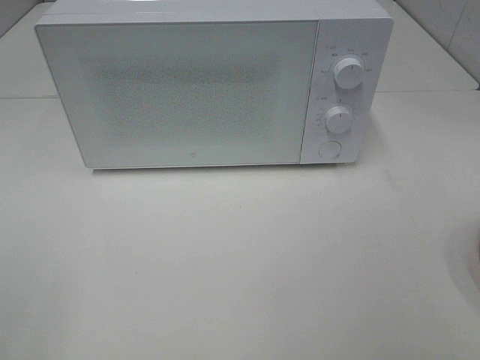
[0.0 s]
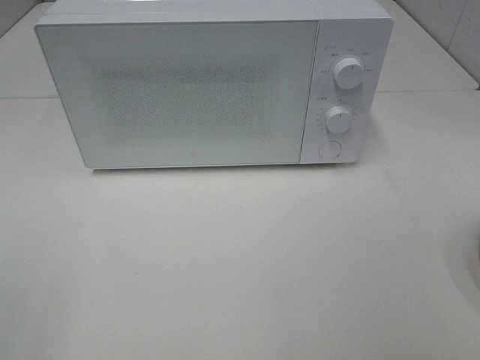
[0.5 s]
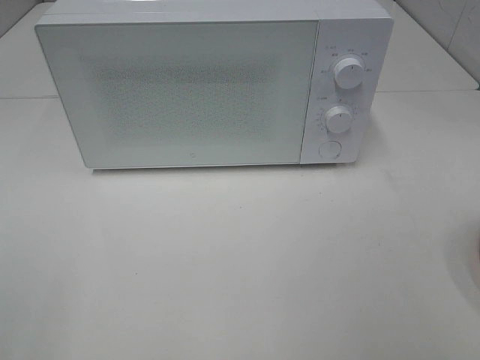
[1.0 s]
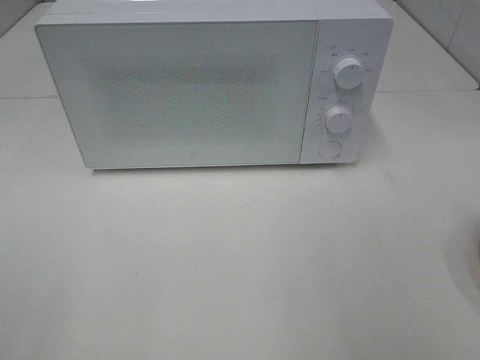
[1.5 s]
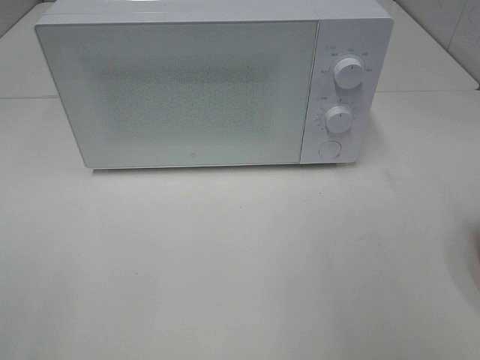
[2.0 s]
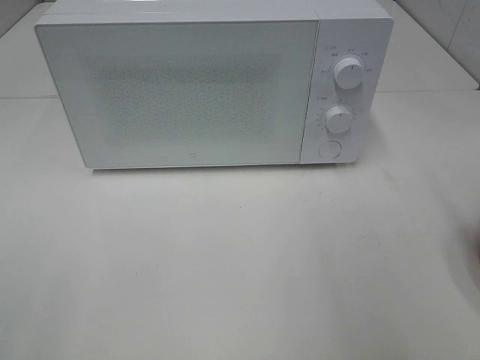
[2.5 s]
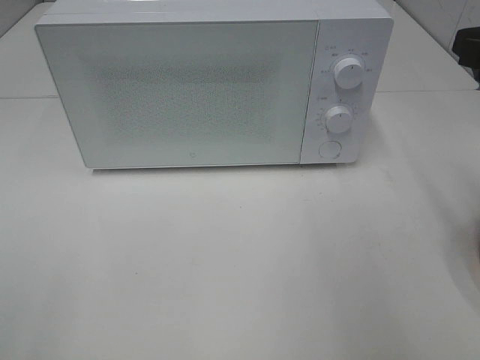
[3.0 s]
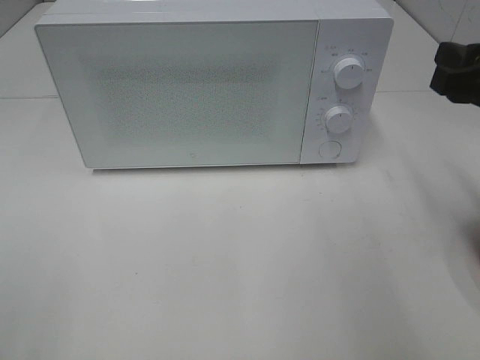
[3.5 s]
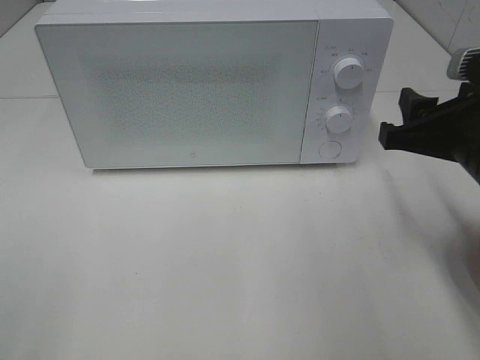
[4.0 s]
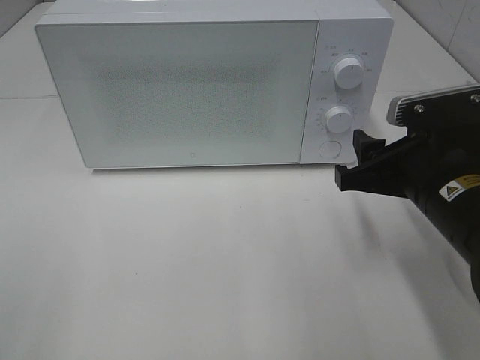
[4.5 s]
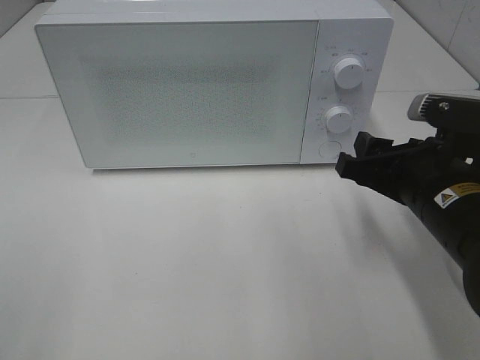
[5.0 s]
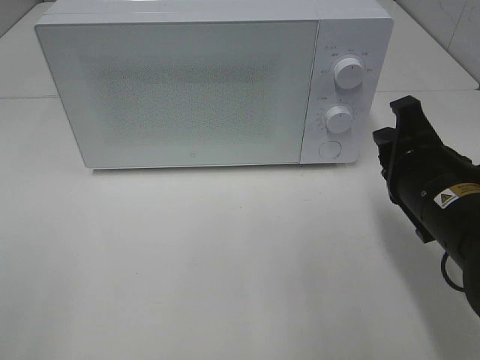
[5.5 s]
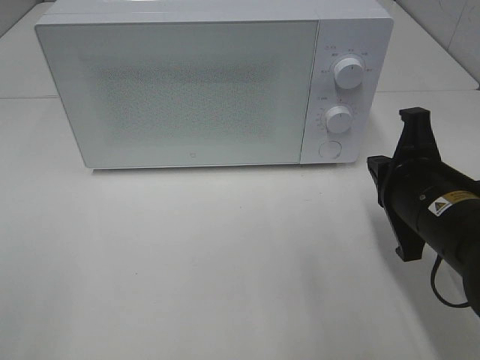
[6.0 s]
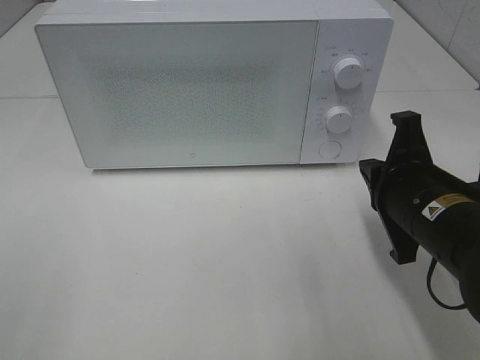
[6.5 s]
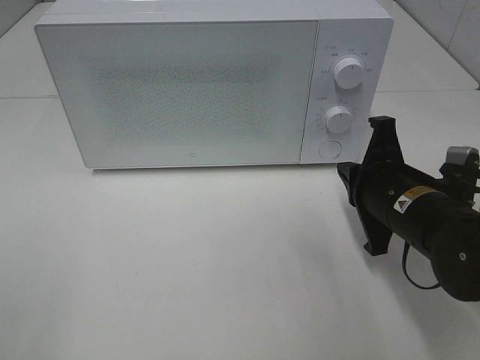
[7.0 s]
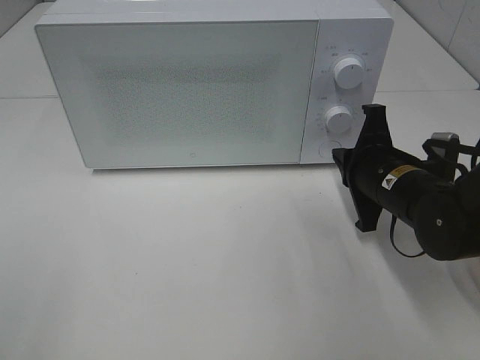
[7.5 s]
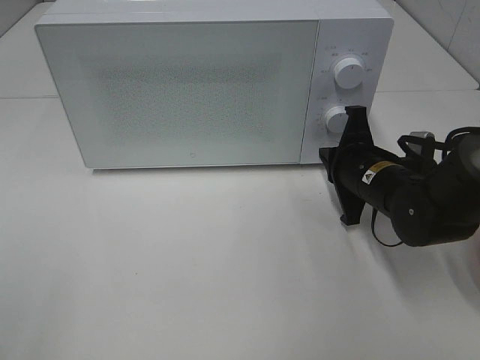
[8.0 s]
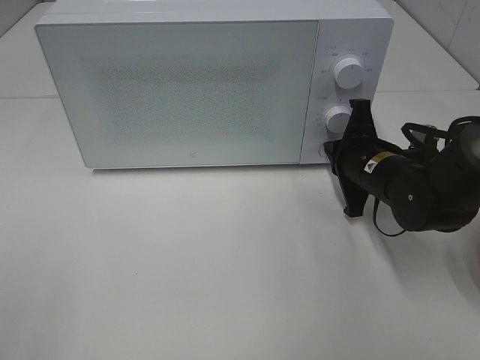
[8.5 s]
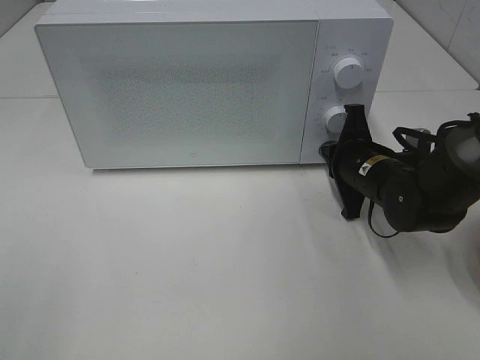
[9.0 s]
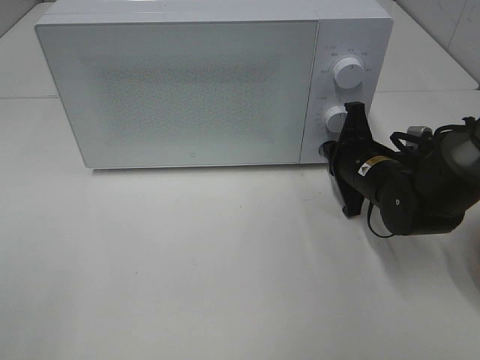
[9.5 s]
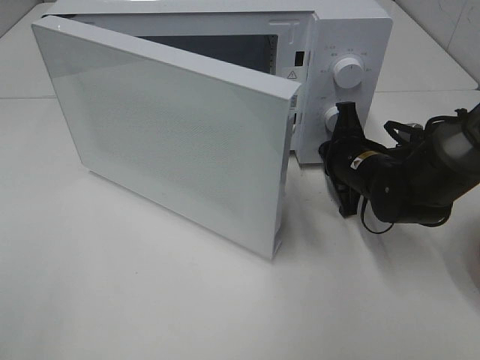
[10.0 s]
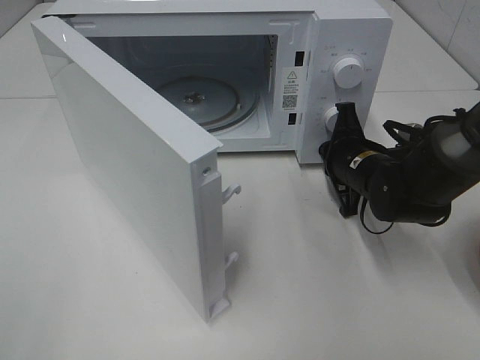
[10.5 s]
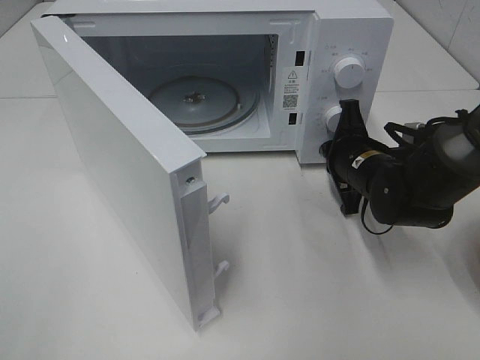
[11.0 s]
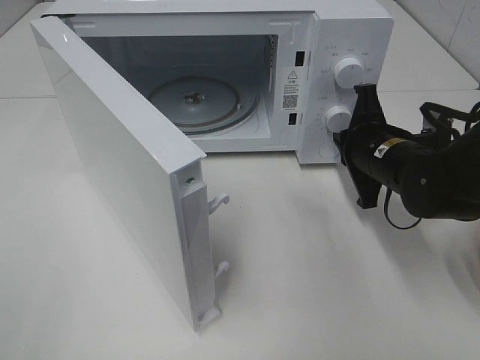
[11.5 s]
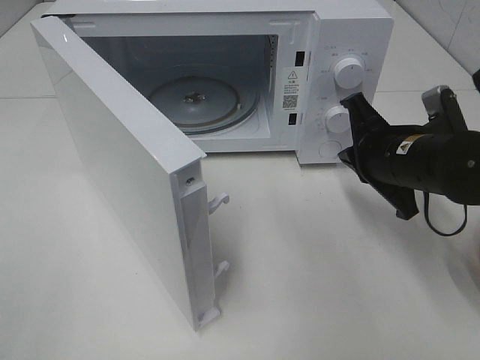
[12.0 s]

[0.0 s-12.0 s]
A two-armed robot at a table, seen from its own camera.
Task of the whole recording: Heat the burger.
Step, 0.0 to 11.0 s: Right hand: press the switch.
2.0 to 4.0 s: The right gripper shifts roughly 15 cm downward, forward and to the left.
4.0 to 6.0 s: The right gripper travels downward by some 5 cm, and closes.
6.0 to 8.0 s: The right gripper goes roughly 10 cm forward and downward.
8.0 to 10.0 s: There are only small adjustments of the grippers.
10.0 to 12.0 s: The right gripper goes about 10 cm upward and backward.

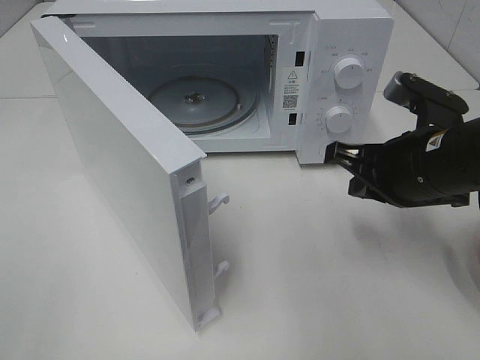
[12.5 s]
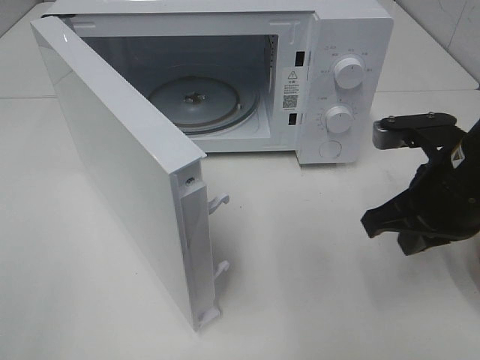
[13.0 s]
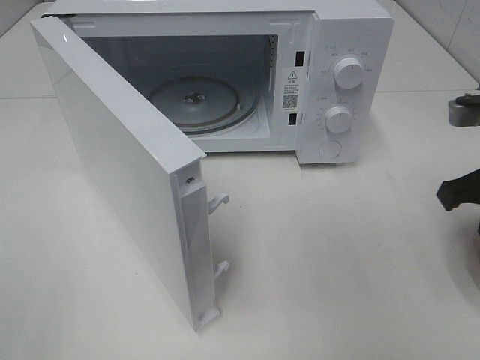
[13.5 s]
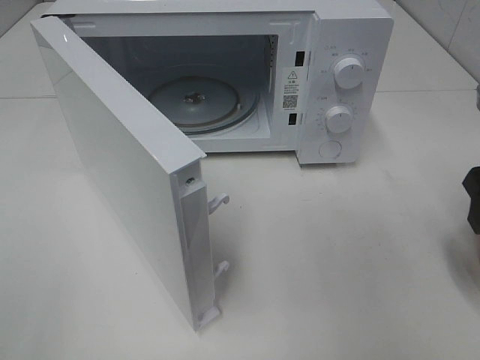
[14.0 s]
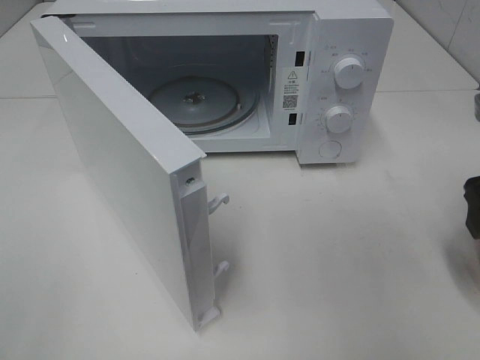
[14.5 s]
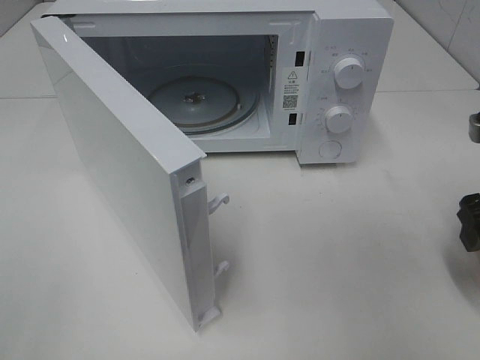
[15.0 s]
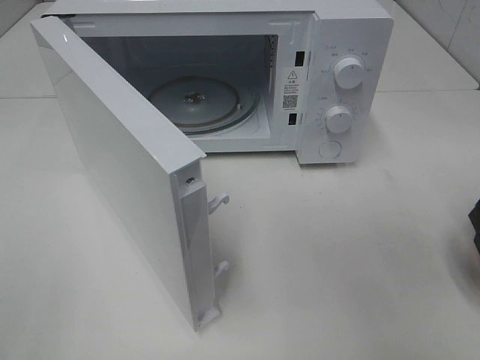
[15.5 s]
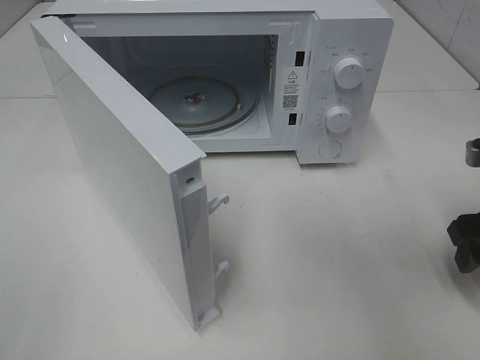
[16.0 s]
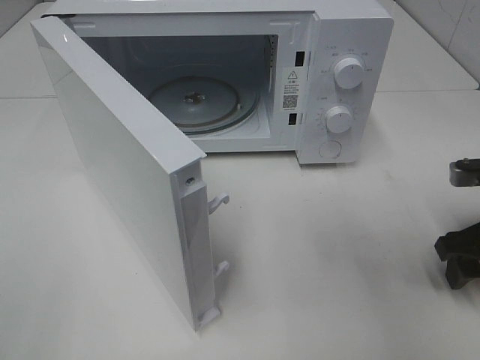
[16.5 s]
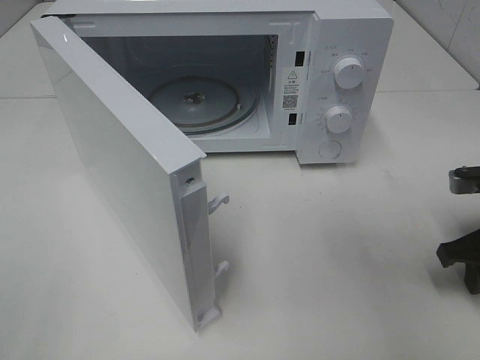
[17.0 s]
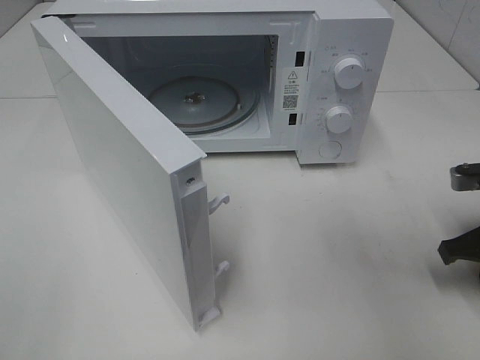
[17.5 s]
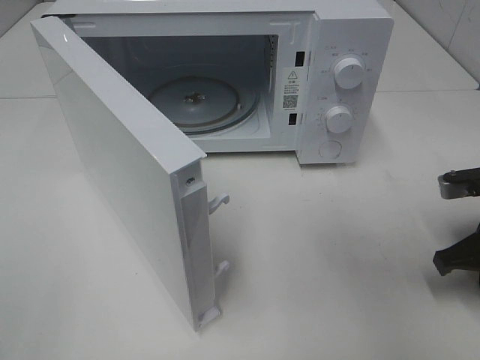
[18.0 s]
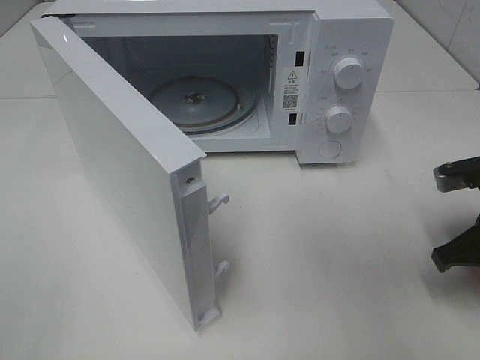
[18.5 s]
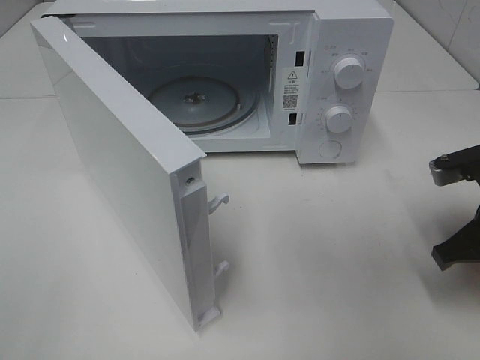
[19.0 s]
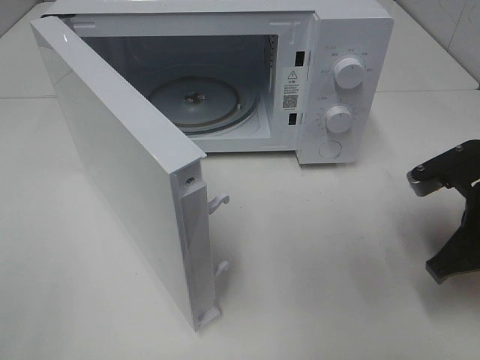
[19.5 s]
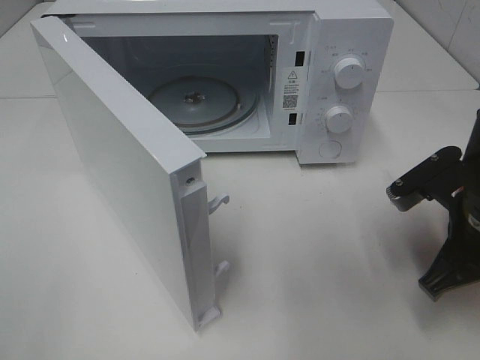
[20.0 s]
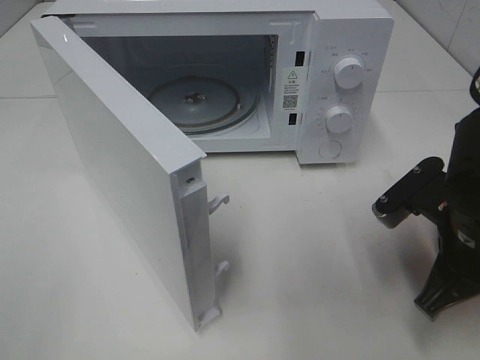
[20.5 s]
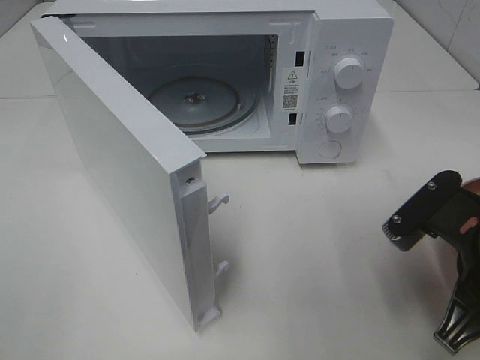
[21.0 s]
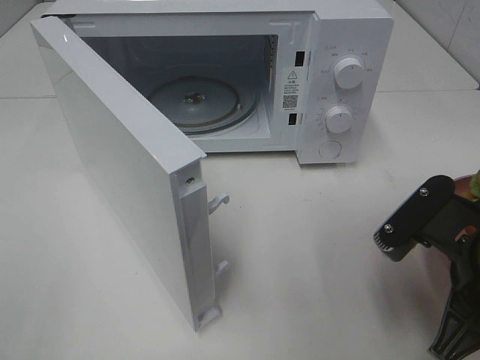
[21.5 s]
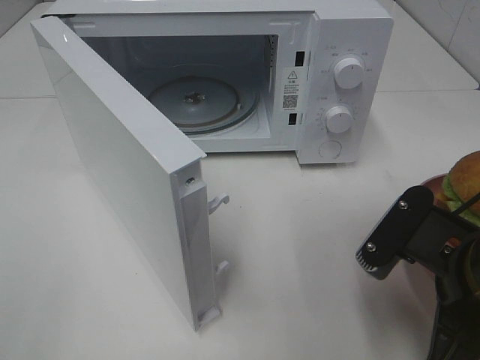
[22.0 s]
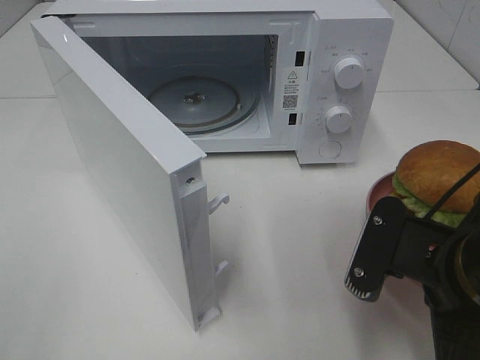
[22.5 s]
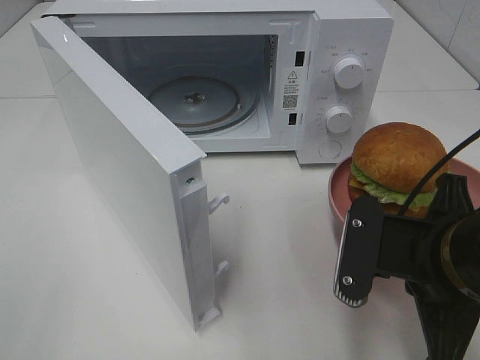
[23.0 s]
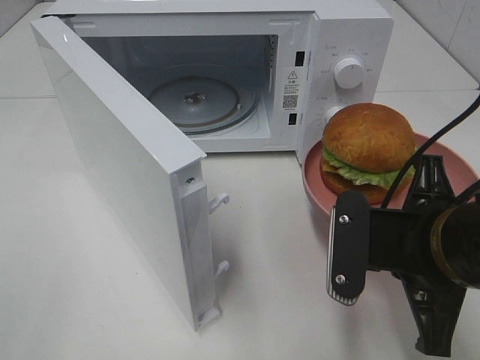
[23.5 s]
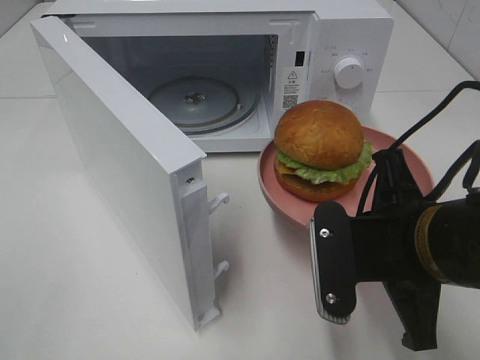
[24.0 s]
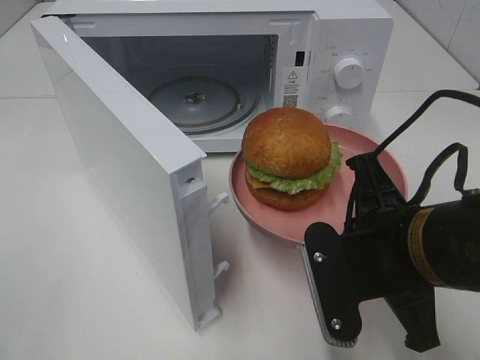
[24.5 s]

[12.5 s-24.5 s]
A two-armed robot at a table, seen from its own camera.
Task of the whole recording: Heat the burger.
Step, 12.5 to 17.5 s: Right hand: grab the plate with the hamburger.
12.5 to 14.5 s: The right gripper goes about 10 cm to the right, and opens its fingers.
14.5 to 16.5 s: The right gripper heads downward, covering some 10 cm.
16.5 to 18.5 s: The right gripper closes its fingers.
18.5 to 20.5 s: The right gripper heads to the left, covering some 5 cm.
20.5 to 22.5 s: The right gripper heads backward, covering some 5 cm.

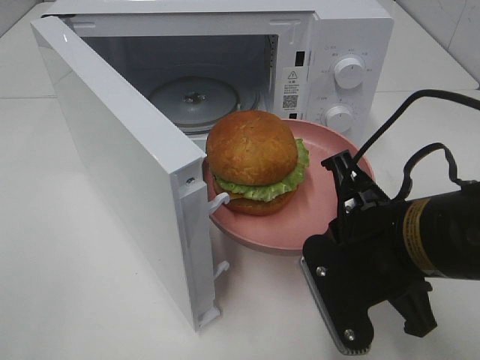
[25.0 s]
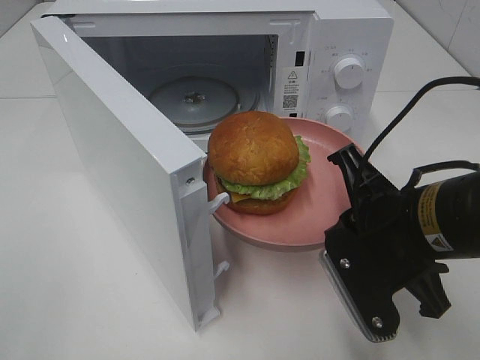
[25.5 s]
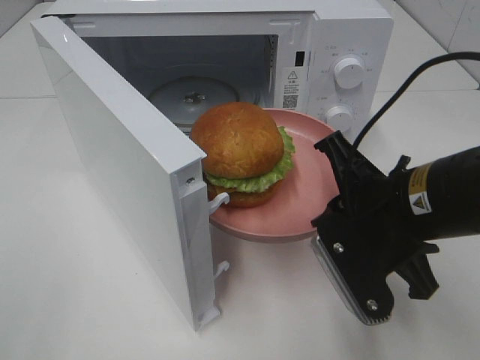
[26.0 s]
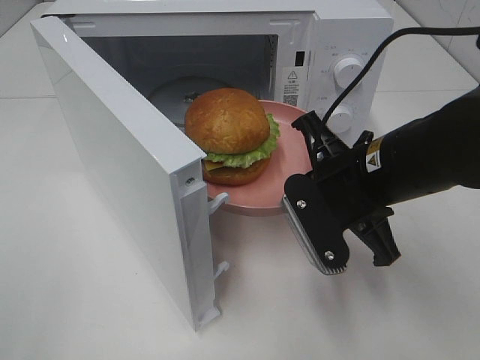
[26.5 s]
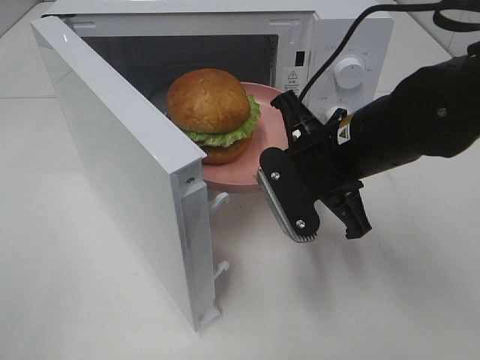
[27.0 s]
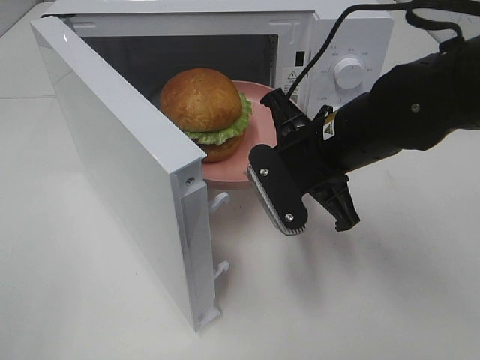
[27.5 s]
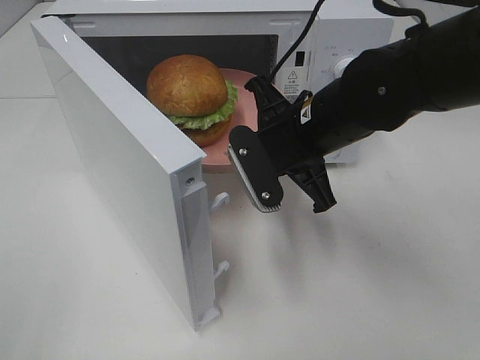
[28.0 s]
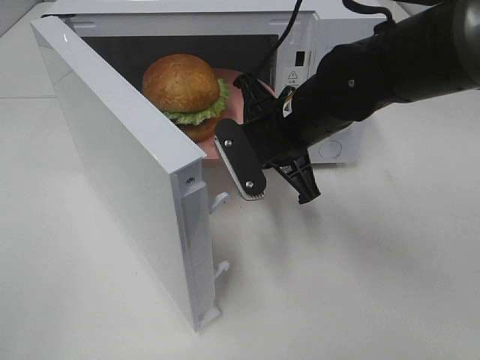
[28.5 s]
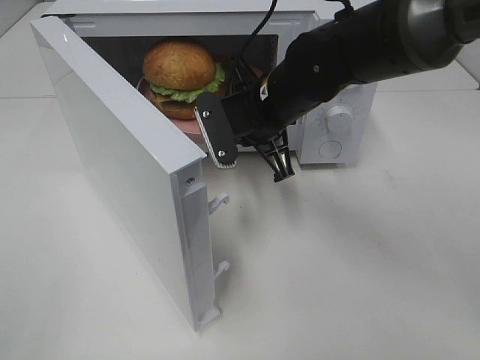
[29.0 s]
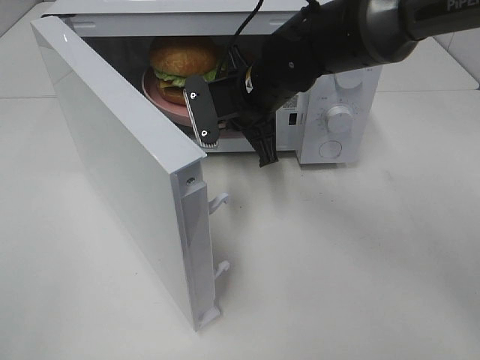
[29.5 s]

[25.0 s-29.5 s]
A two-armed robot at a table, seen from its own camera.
Task of the whole recording: Heat the burger.
25.0 to 27.0 s: The right gripper heads forward, covering some 10 cm.
27.0 to 29.5 s: The right gripper shifts roughly 15 cm forward and to the left.
